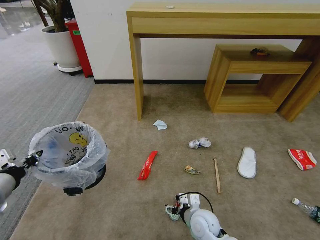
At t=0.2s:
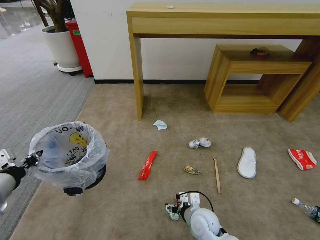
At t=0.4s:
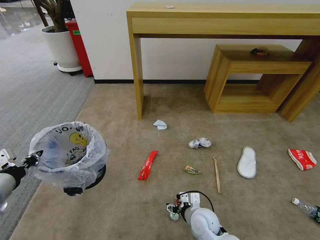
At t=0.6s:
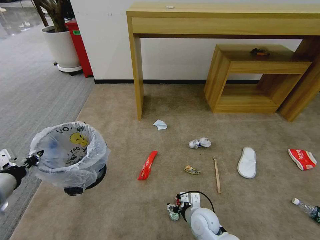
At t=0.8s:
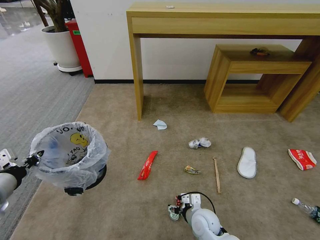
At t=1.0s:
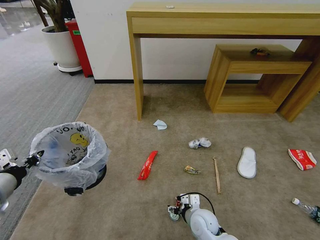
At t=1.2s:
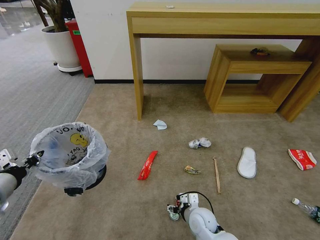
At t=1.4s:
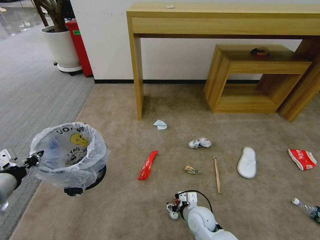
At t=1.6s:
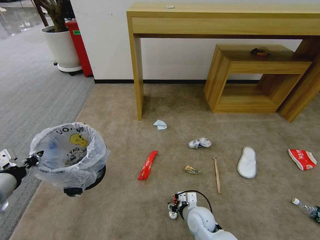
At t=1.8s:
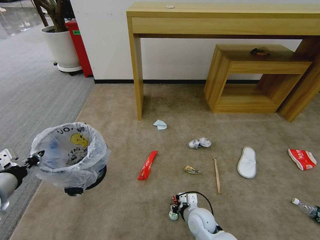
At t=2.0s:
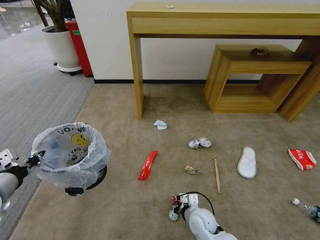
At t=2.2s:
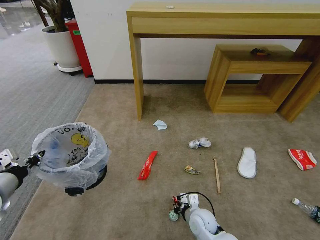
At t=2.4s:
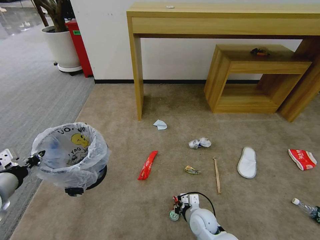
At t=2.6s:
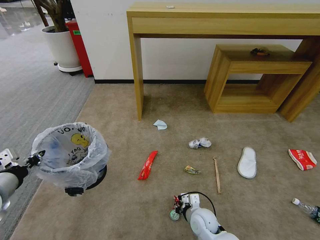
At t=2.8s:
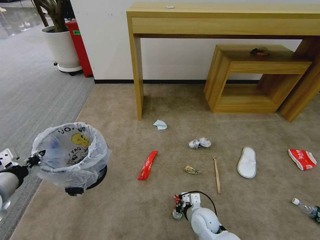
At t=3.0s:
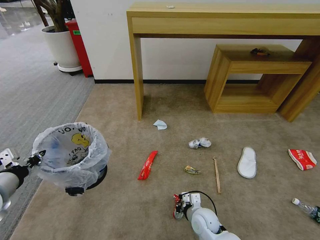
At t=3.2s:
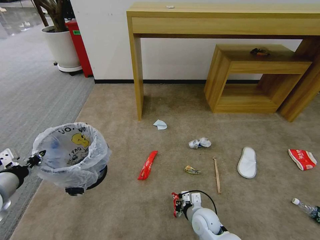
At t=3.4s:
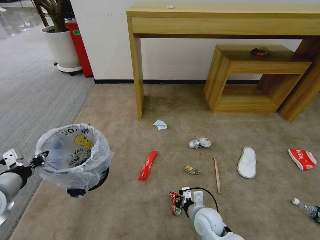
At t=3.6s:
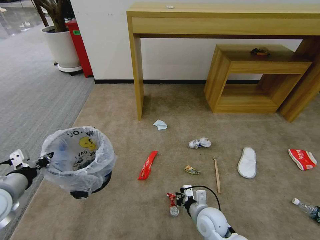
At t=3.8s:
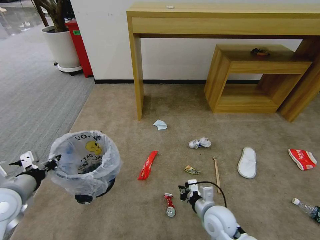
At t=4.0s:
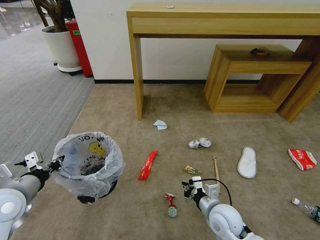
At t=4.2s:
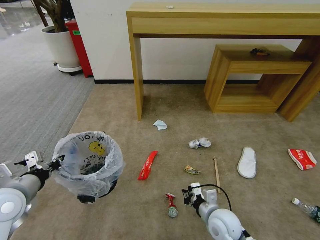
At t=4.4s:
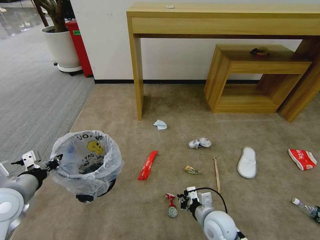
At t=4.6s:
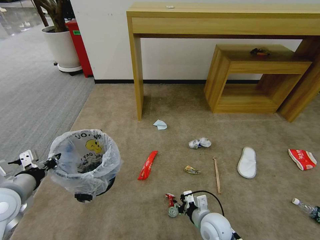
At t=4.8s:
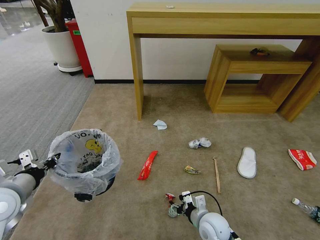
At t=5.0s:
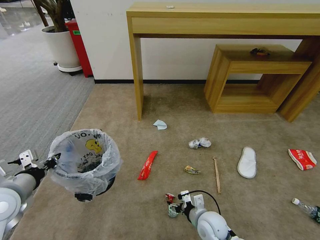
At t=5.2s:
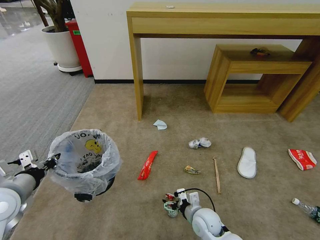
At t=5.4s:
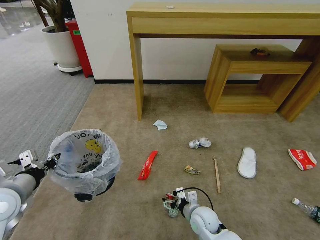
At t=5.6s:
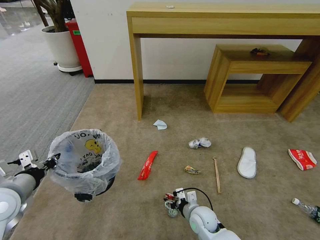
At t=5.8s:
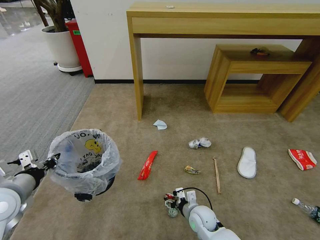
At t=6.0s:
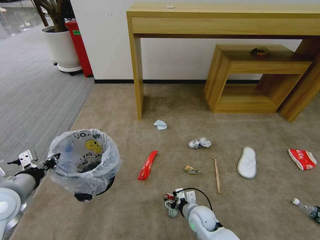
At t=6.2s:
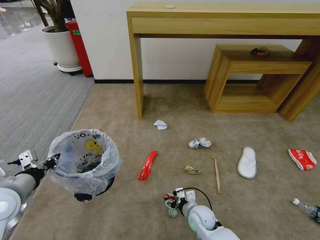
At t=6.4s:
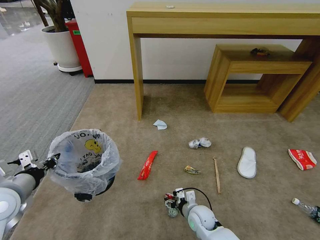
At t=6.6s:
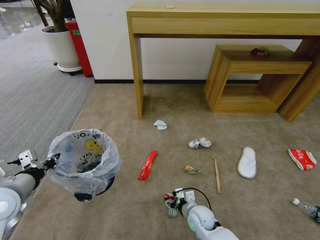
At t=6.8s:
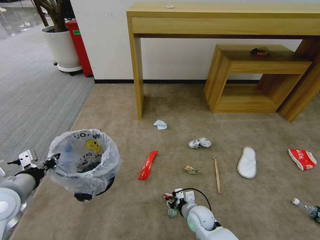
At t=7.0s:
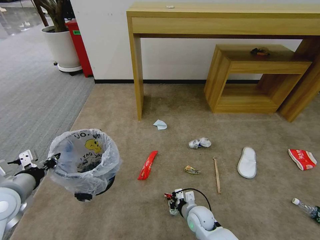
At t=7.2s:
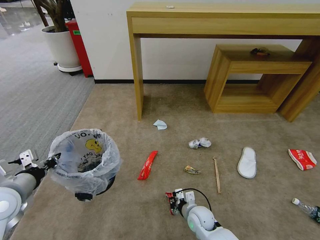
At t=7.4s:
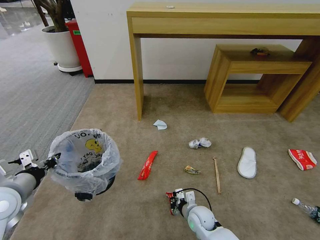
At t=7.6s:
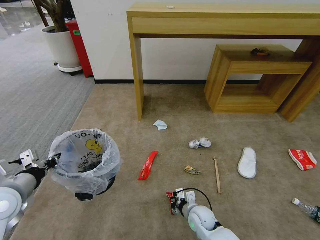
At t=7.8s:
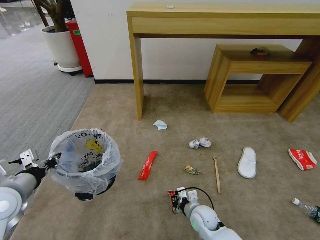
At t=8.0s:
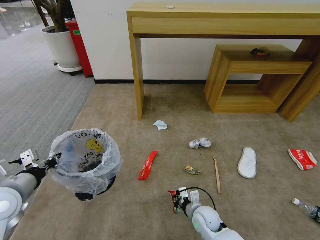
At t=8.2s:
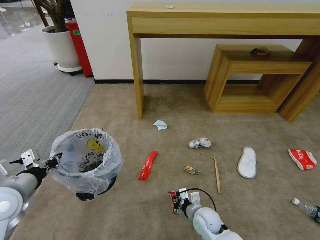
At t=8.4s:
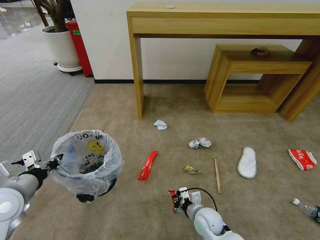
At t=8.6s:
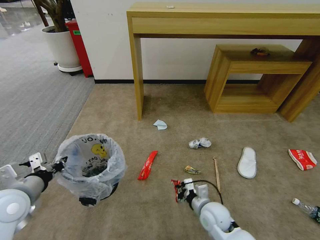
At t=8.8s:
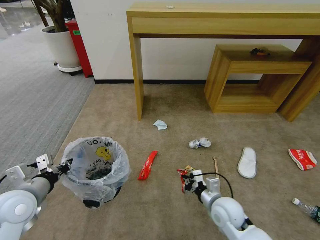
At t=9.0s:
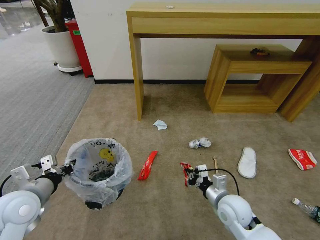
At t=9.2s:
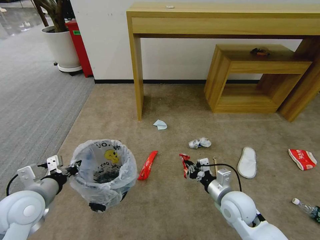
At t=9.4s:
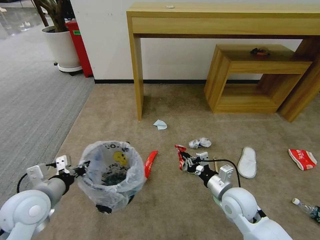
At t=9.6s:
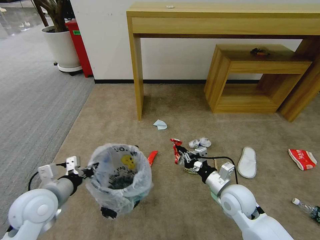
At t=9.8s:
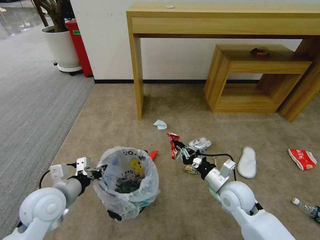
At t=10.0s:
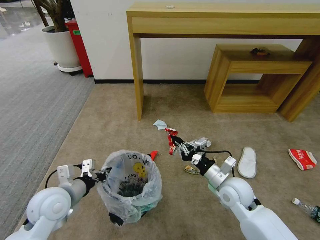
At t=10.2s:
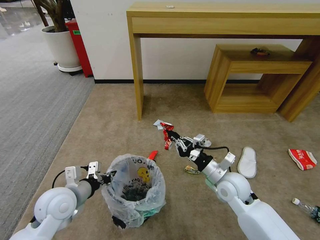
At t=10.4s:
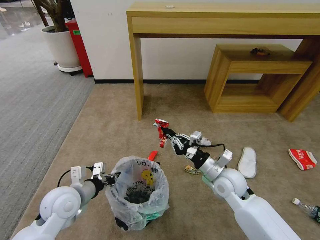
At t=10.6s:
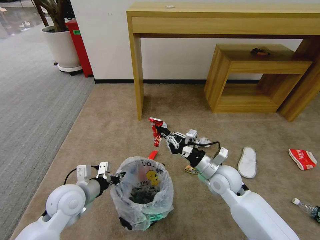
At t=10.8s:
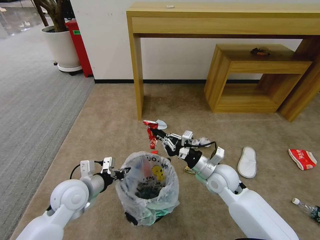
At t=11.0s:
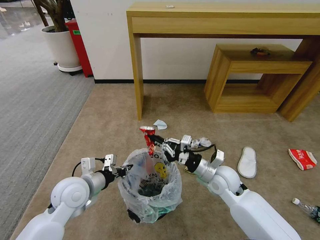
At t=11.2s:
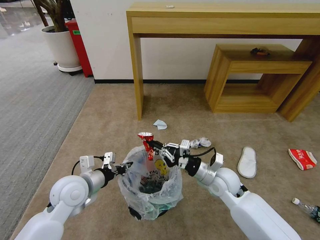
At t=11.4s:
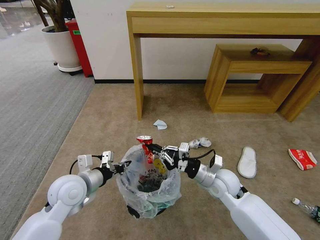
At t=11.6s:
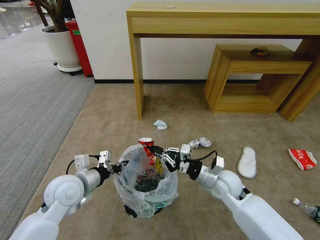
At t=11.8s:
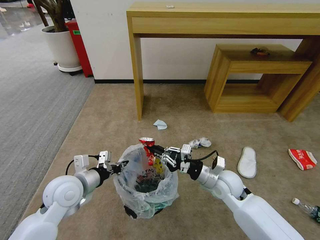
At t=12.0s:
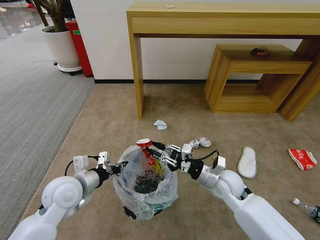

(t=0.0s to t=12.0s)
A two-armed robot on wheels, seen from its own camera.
Task of the whole recording: Pick up the trash bin and place the garbage on the floor into it.
t=0.0s - t=1.6s: The grippers make only small movements.
t=1.6s - t=3.0s: The right gripper closes.
t=3.0s - t=4.4s: The right gripper shifts approximately 5 cm upward.
t=4.4s - t=6.0s: The right gripper moves downward, about 5 cm, and opens.
t=7.6s - t=9.0s: The right gripper is displaced upward and to the right by roughly 15 cm.
t=9.0s - t=10.4s: The right gripper heads forward and upward, covering some 10 cm. Meanwhile the left gripper travels to the right by approximately 10 cm.
t=10.4s - t=12.0s: There are only small adjustments of the grippers.

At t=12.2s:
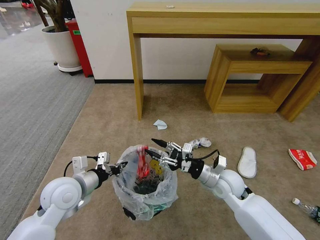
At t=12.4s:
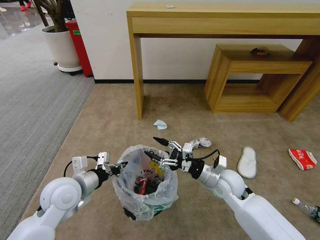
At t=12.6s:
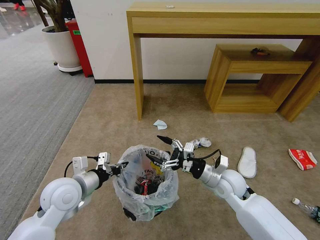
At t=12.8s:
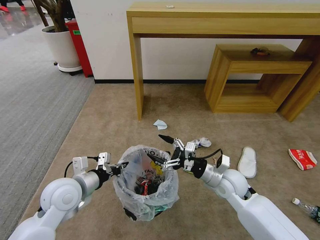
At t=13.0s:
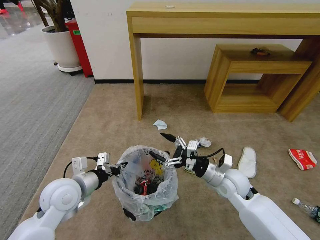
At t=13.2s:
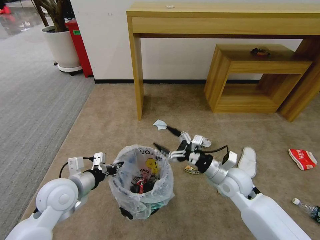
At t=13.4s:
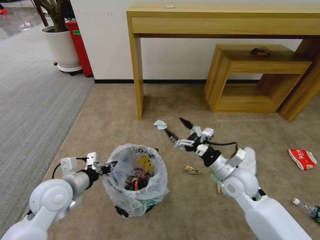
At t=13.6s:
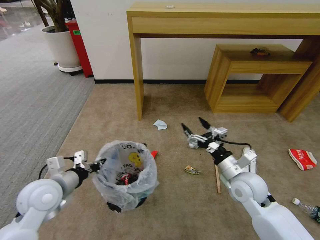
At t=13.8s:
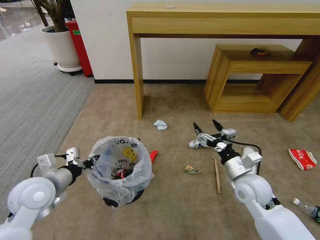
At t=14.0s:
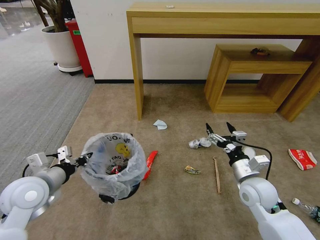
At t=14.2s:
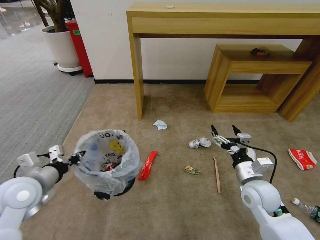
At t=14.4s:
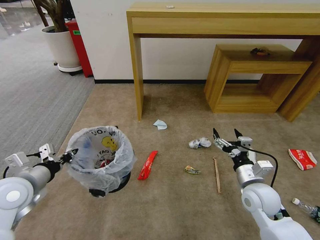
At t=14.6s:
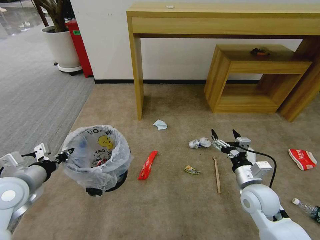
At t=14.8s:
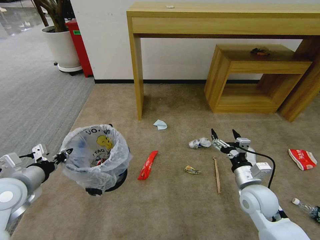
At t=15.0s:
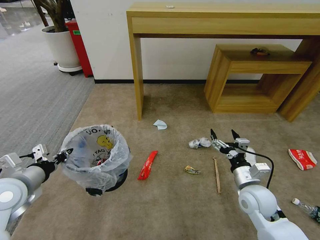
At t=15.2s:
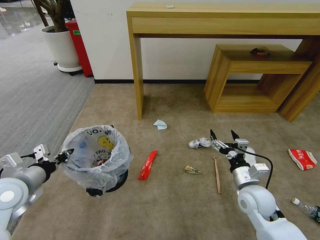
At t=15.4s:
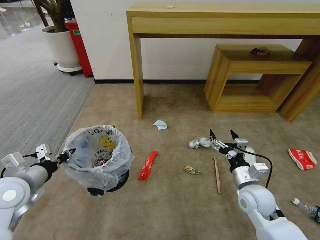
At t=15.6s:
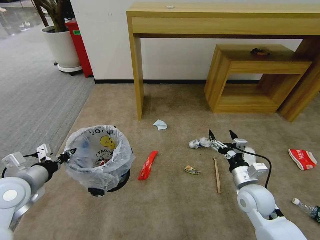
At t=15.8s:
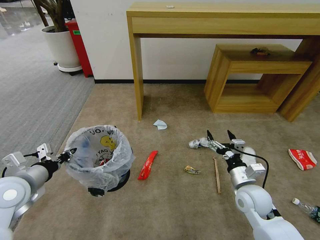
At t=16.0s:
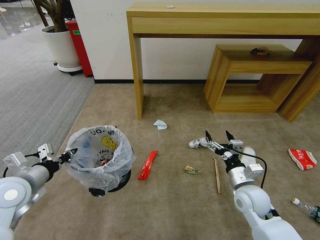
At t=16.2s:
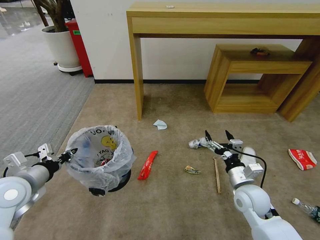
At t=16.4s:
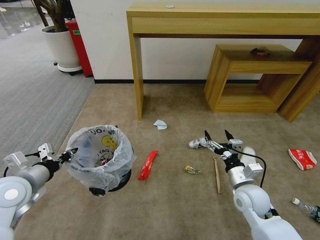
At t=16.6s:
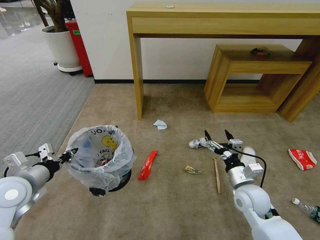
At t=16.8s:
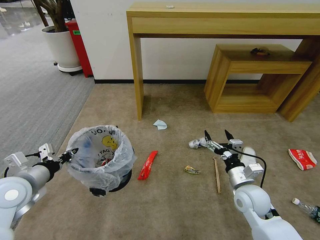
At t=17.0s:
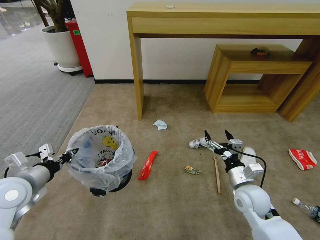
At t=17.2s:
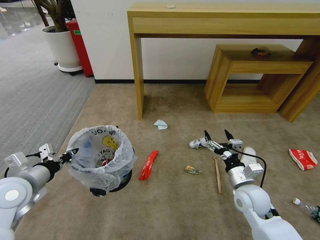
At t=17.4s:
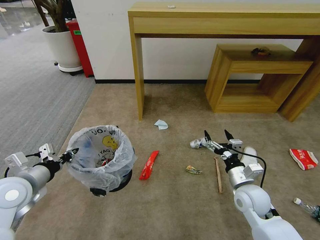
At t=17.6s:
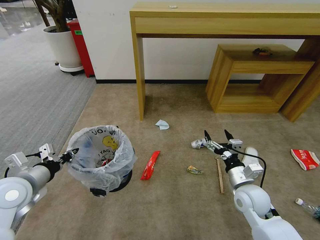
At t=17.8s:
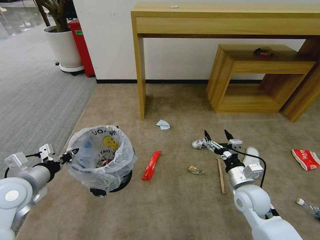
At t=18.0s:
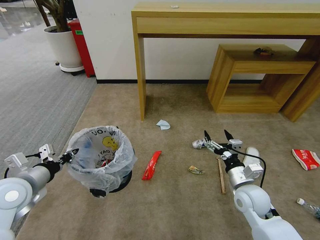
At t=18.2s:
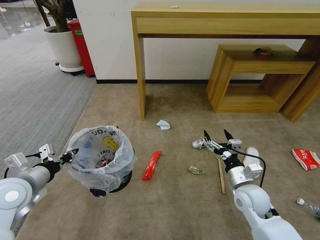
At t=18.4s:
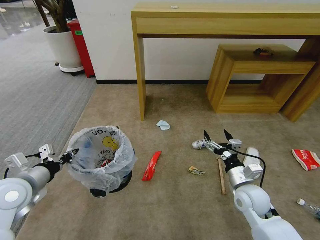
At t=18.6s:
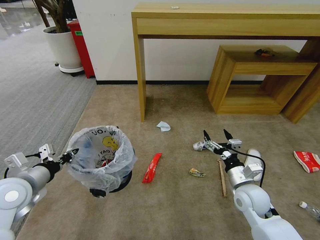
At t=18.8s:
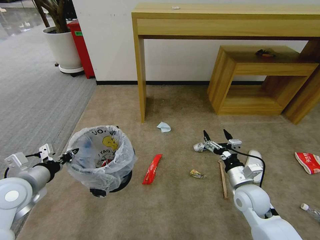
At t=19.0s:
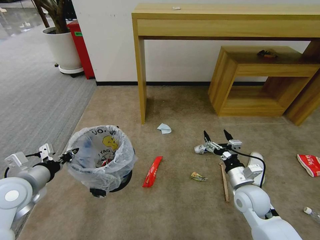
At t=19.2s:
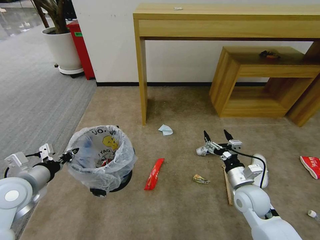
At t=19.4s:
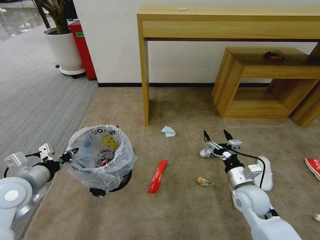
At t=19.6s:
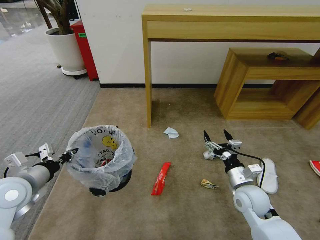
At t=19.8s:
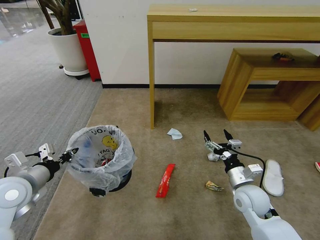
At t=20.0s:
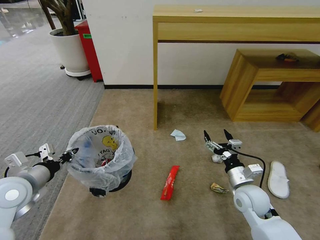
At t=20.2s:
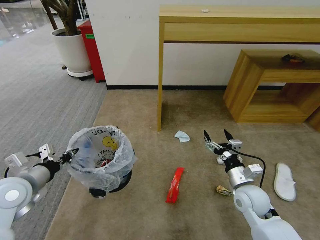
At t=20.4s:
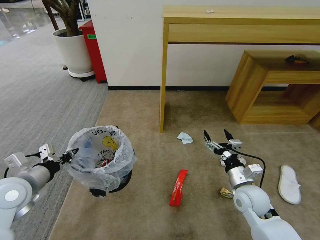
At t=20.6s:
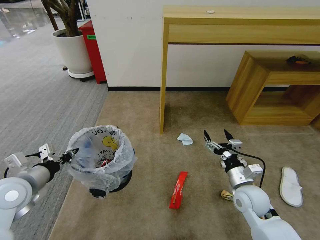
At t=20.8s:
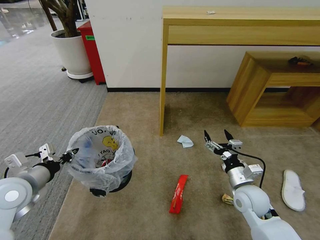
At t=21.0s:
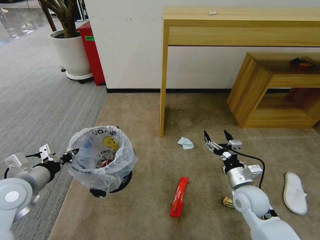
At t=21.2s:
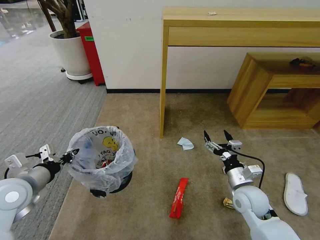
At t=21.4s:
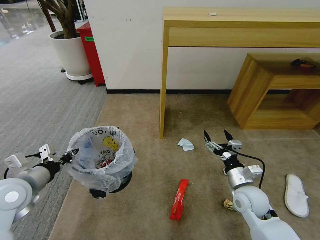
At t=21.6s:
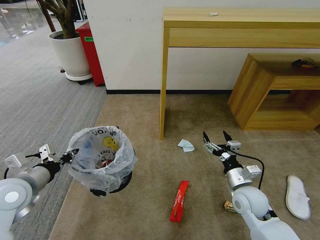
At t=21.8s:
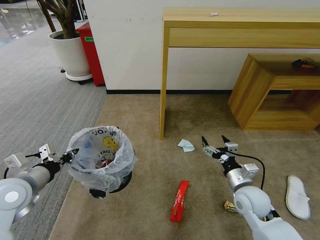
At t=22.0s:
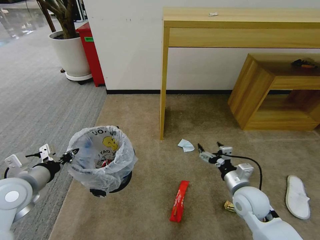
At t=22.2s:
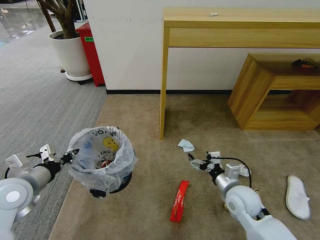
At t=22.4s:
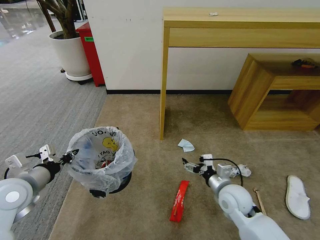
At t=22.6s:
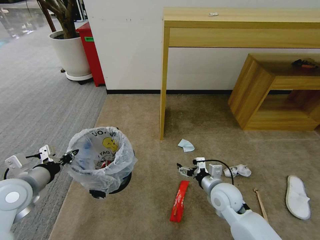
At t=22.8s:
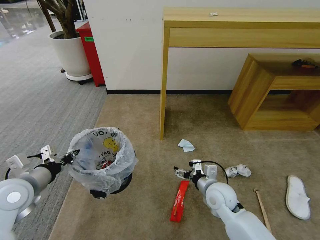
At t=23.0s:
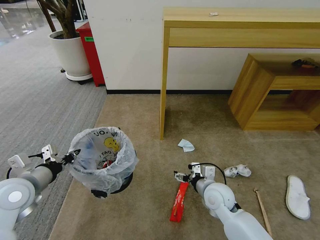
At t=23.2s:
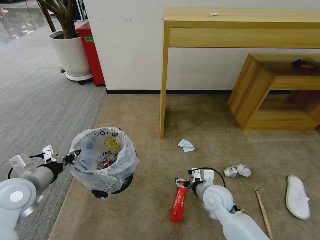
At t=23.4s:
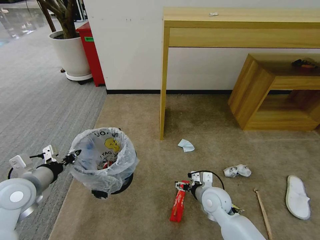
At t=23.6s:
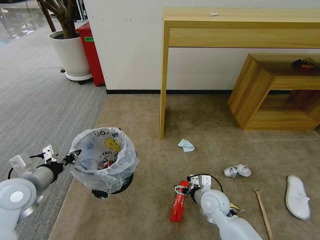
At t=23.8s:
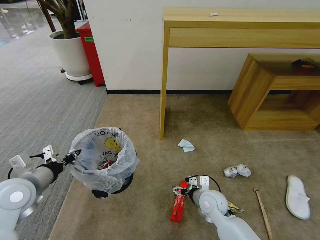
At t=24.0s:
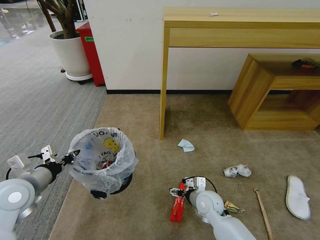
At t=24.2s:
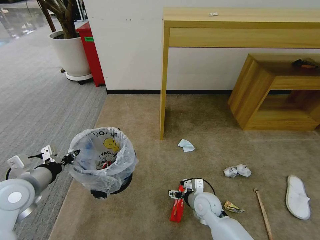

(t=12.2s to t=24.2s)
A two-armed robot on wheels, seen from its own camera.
Task of the whole recording: Pick up the trash bin and place the garbage on the floor into it.
t=12.2s - t=13.8s: The left gripper heads to the left, covering approximately 5 cm; the right gripper heads to the right, covering roughly 5 cm, and opens its fingers.
t=13.8s - t=15.2s: The left gripper heads to the left, covering some 5 cm.
t=15.2s - t=16.6s: Neither gripper changes place.
t=16.6s - t=18.2s: Neither gripper changes place.
t=21.2s - t=22.6s: The right gripper travels to the left by approximately 5 cm.
t=22.6s - t=24.2s: The right gripper goes approximately 5 cm downward.
